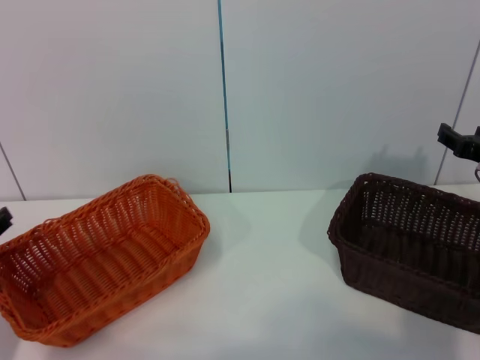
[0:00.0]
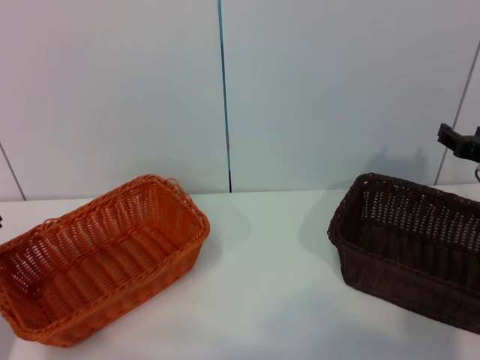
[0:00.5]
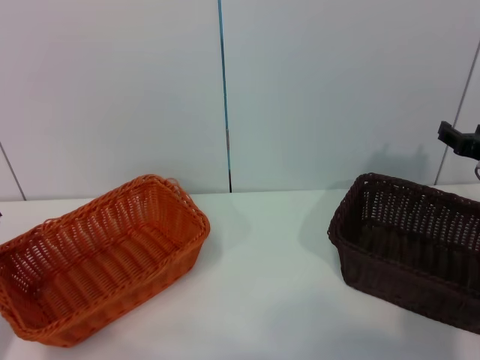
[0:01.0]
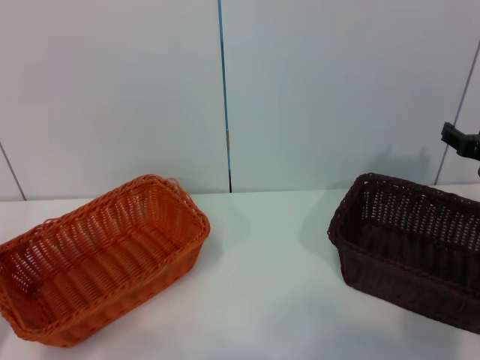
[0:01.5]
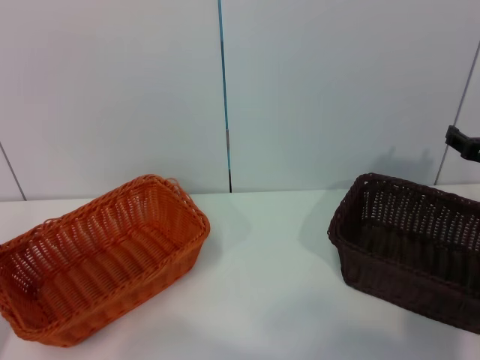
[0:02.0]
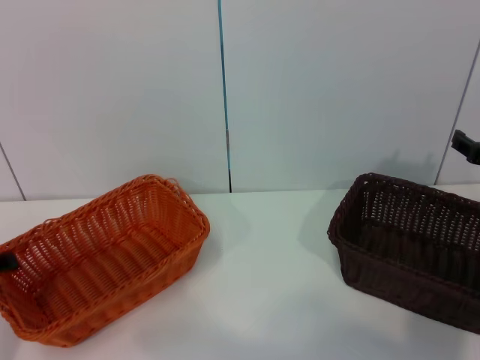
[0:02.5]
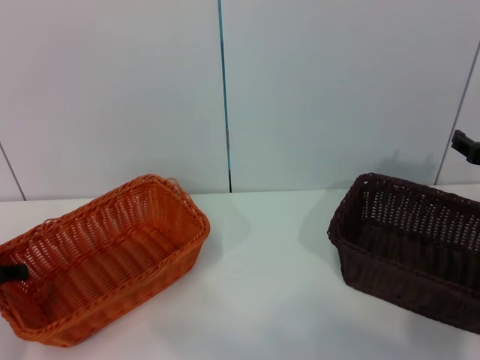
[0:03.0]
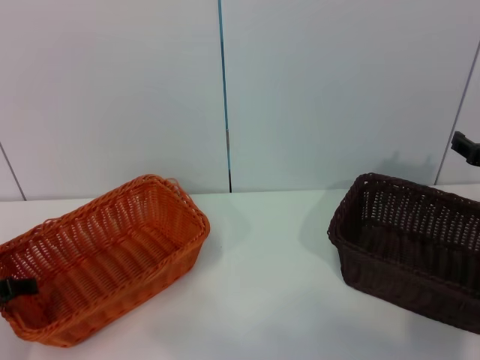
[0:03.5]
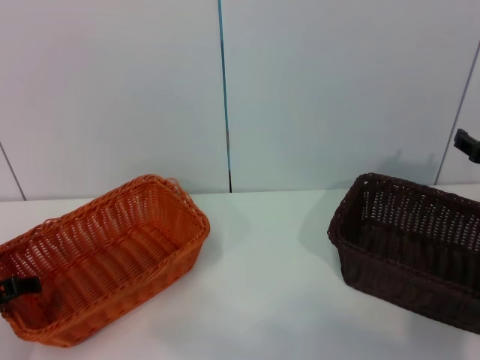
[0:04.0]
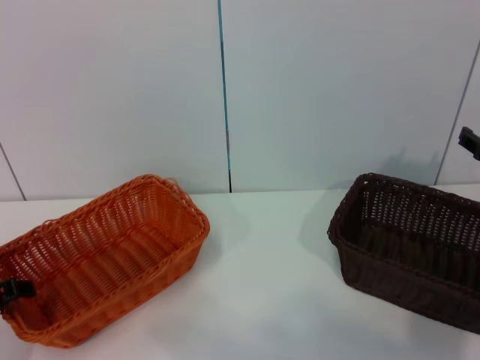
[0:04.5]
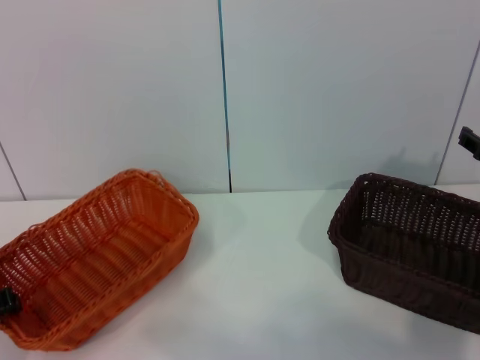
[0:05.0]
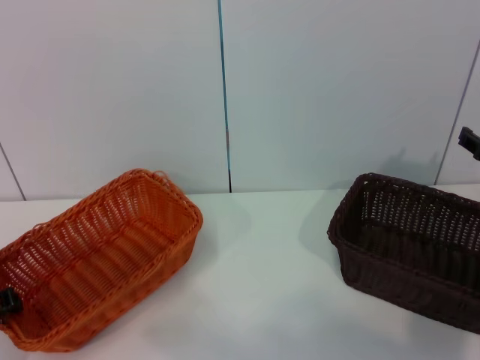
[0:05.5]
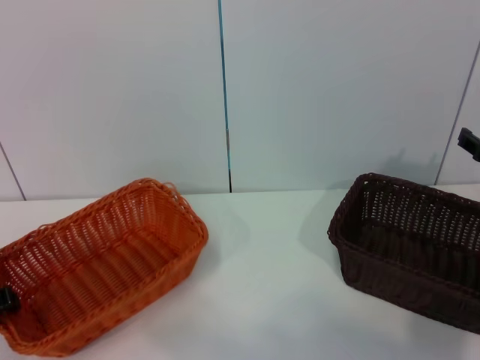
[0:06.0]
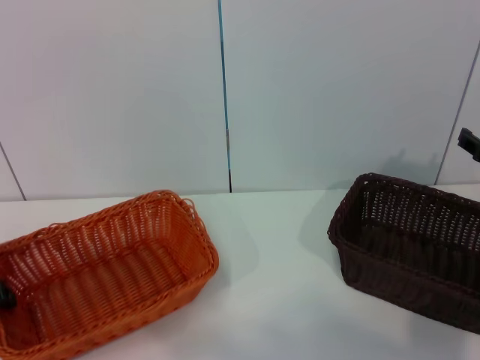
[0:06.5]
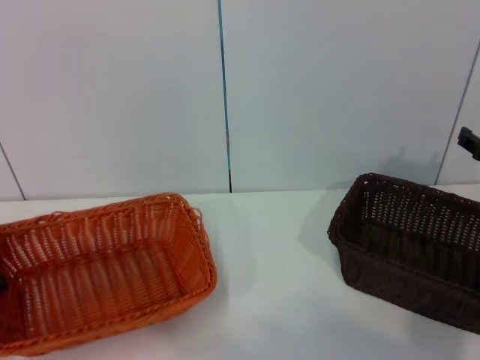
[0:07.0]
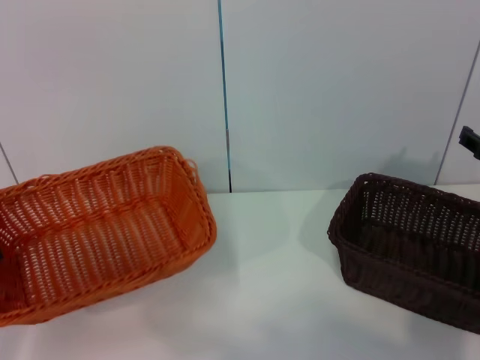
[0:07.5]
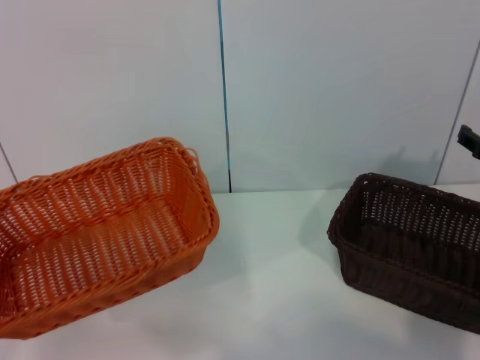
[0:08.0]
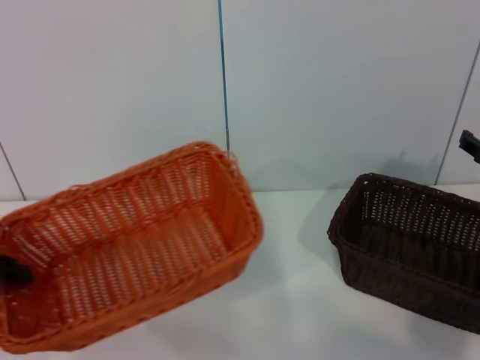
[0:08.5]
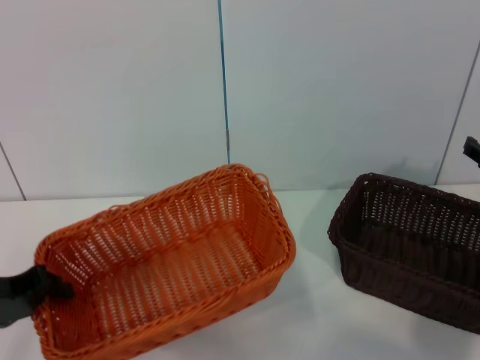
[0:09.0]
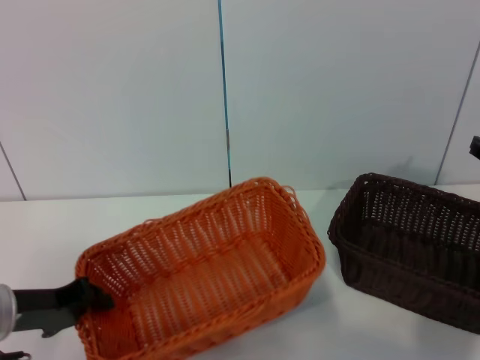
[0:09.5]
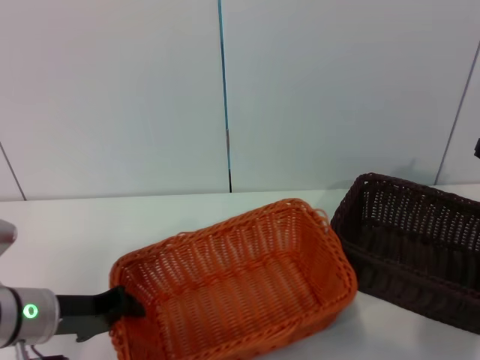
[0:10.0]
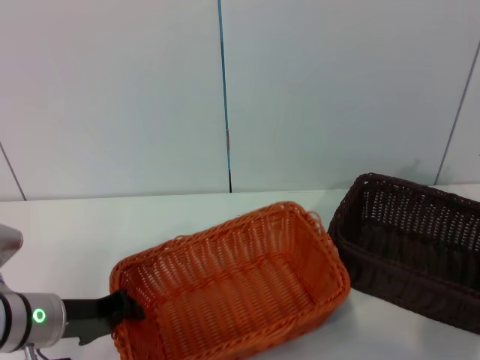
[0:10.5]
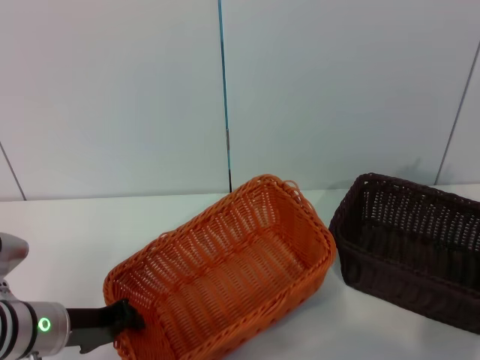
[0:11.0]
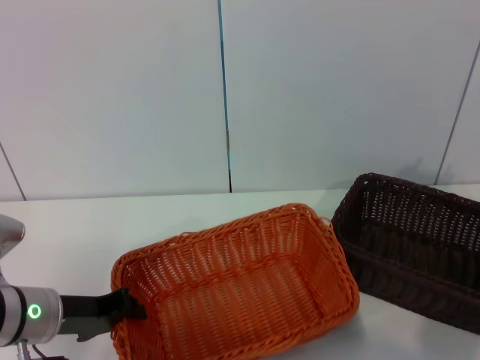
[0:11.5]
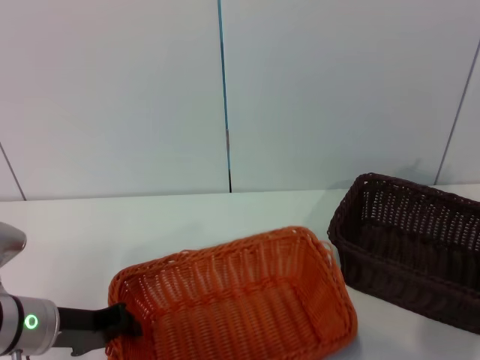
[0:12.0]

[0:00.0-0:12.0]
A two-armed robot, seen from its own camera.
Step, 0:00.0 to 0:06.5: Pick up the light basket with the left gripper.
0:02.0 to 0:04.0: The left gripper changes place by some 5 cm.
0:04.0 to 0:06.0: The left gripper closes.
0:06.0 to 0:08.0: The left gripper goes approximately 10 cm upward.
0:08.0 to 0:10.0: The left gripper travels to the right and downward by some 15 cm.
0:10.0 to 0:12.0: The grippers move only a little.

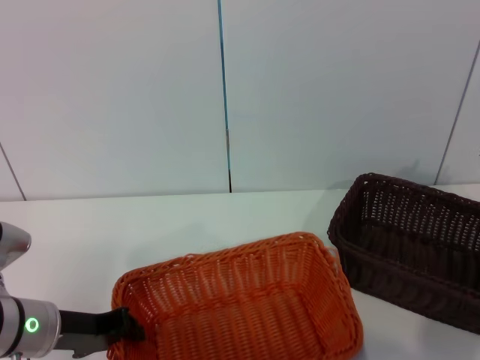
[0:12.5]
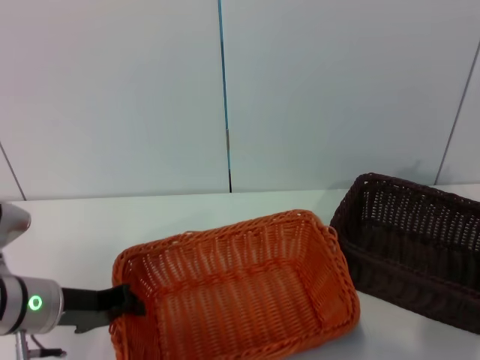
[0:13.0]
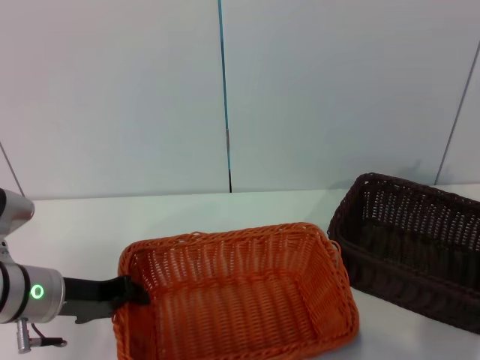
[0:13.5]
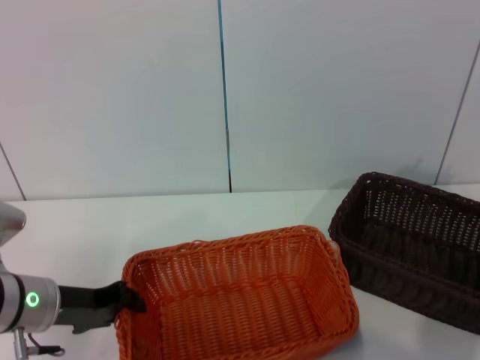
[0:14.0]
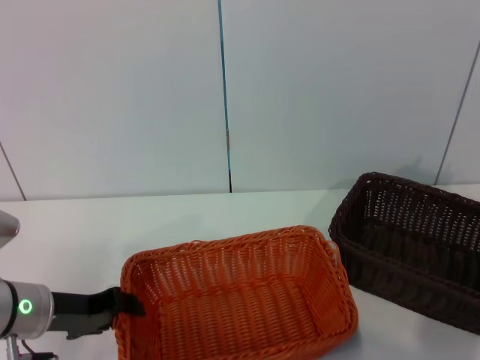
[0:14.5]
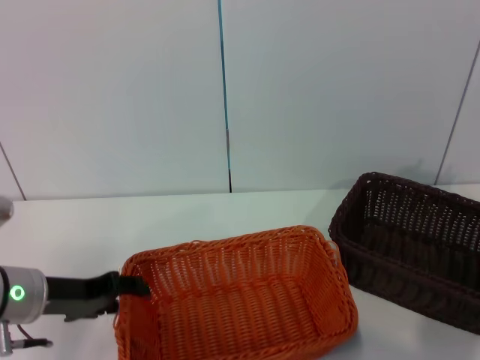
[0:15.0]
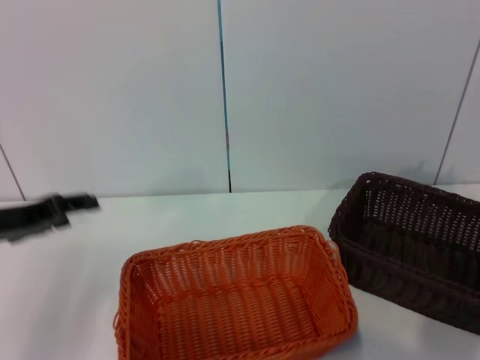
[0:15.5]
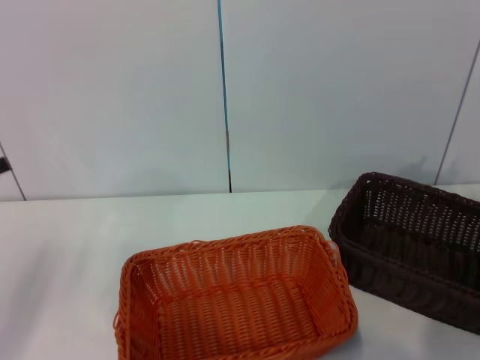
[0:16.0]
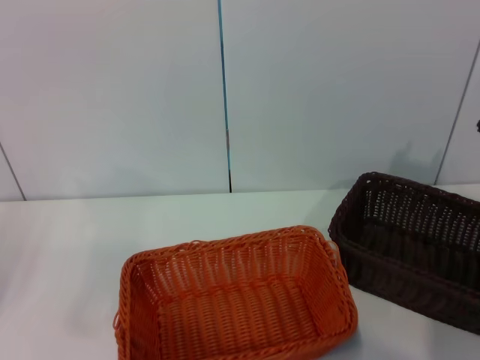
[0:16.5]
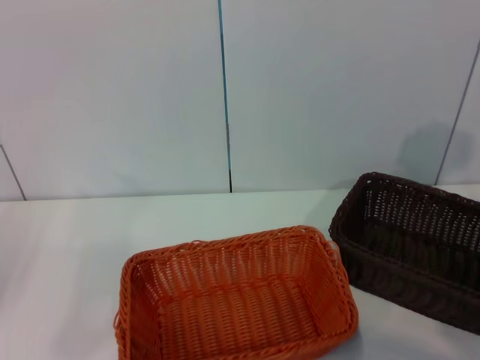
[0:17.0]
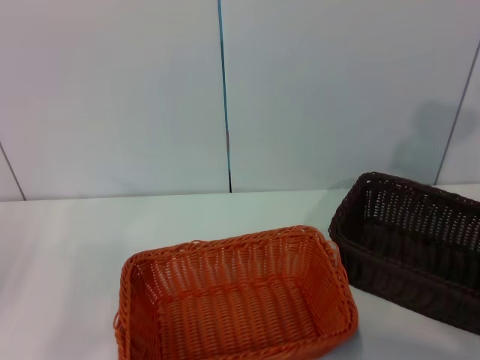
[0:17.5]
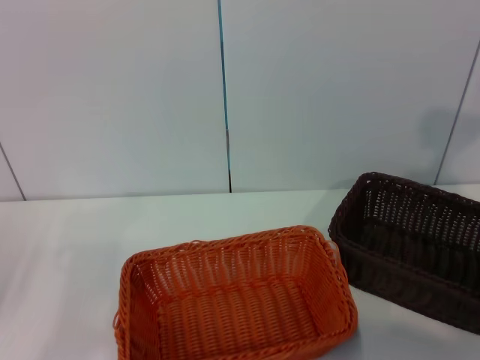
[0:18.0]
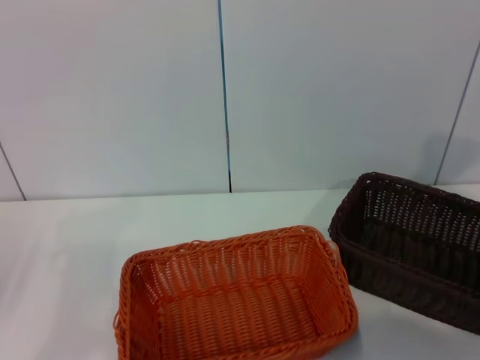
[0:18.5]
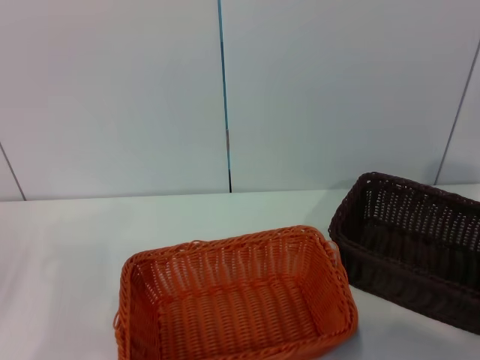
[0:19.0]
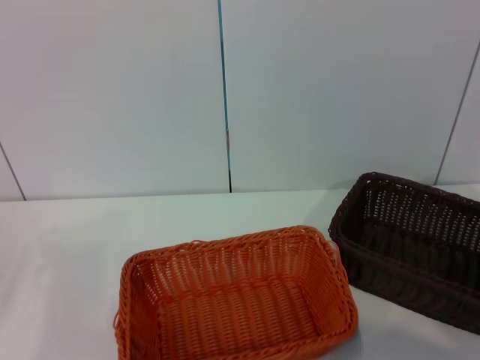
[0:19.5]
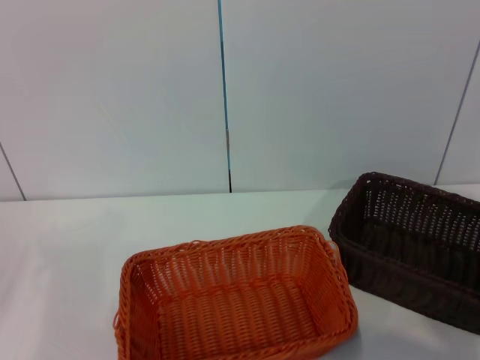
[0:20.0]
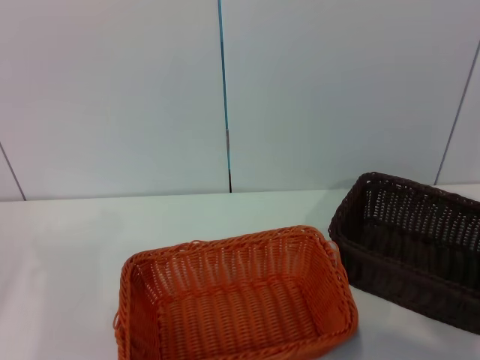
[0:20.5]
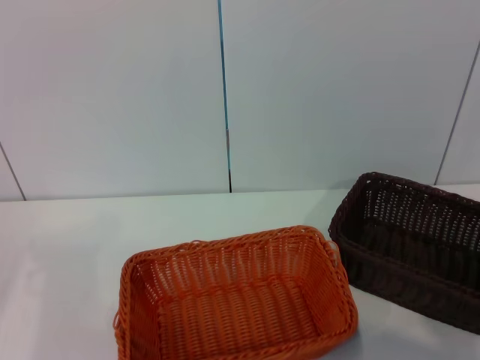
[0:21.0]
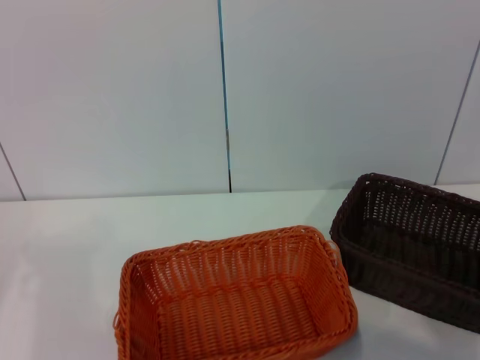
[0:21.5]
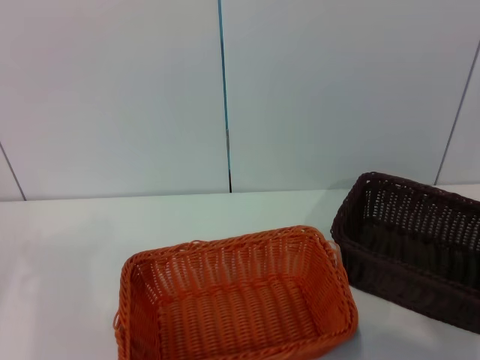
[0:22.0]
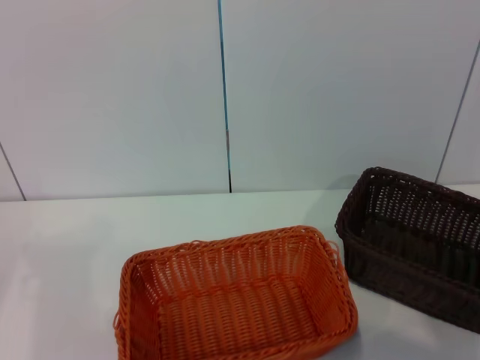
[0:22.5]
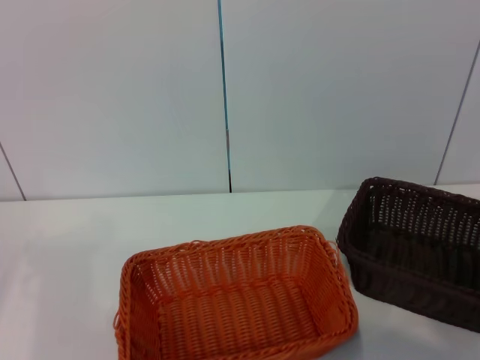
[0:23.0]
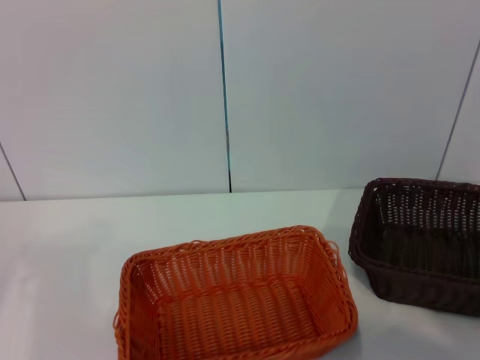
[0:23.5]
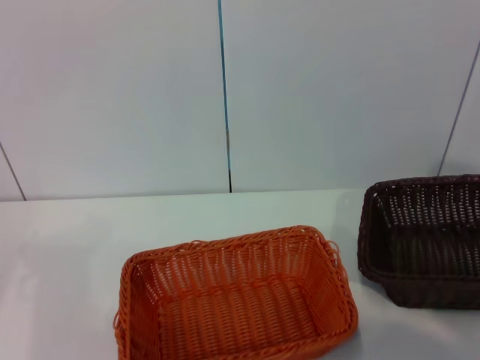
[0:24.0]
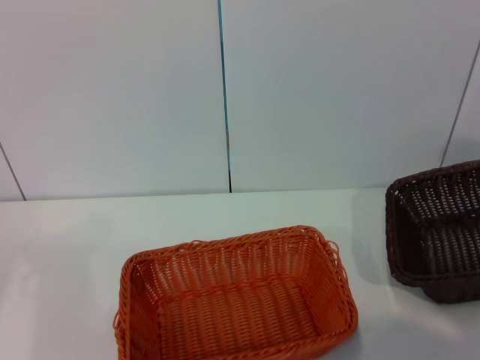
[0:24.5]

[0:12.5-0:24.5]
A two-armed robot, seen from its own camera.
0:12.5 to 0:14.5: The grippers stay close to where they were, moving slightly.
0:14.5 to 0:16.5: The left gripper goes some 20 cm to the left and upward, and opens up.
0:16.5 to 0:18.5: The right gripper goes roughly 10 cm upward and to the right.
0:20.5 to 0:22.5: The right gripper closes its fingers.
0:22.5 to 0:24.5: The right gripper moves upward, some 10 cm.

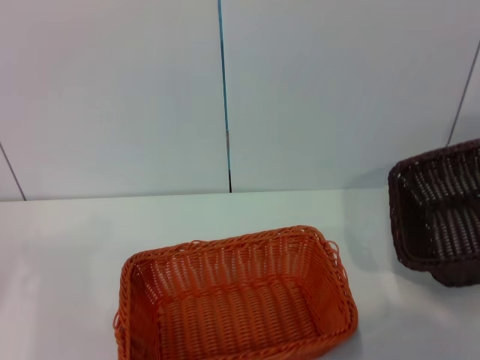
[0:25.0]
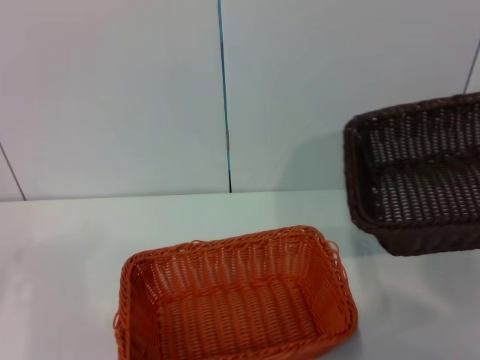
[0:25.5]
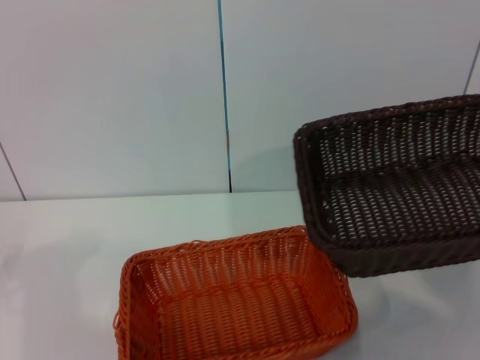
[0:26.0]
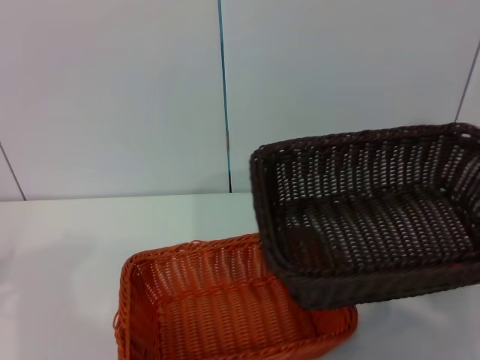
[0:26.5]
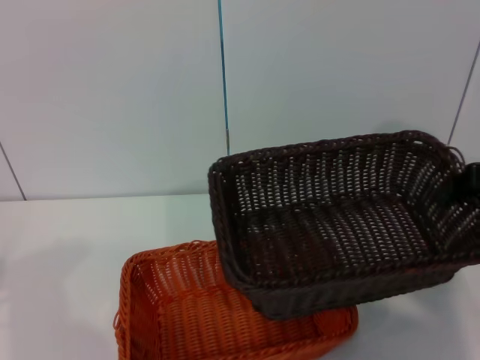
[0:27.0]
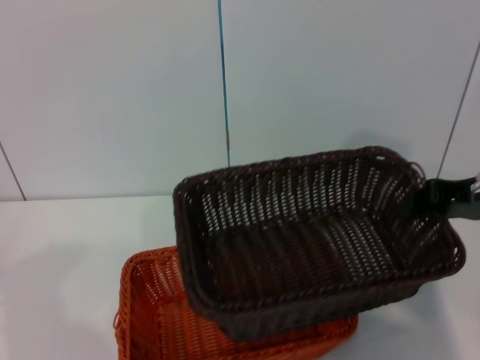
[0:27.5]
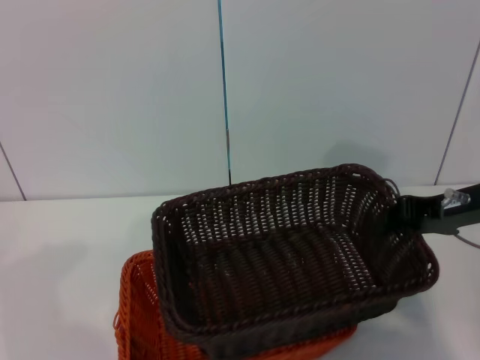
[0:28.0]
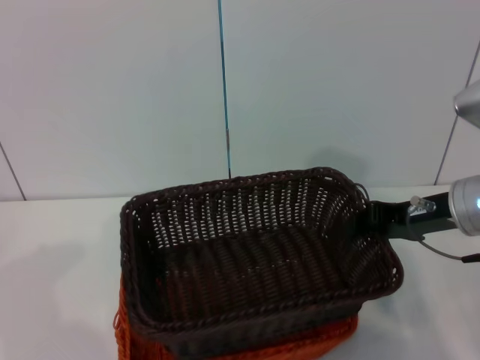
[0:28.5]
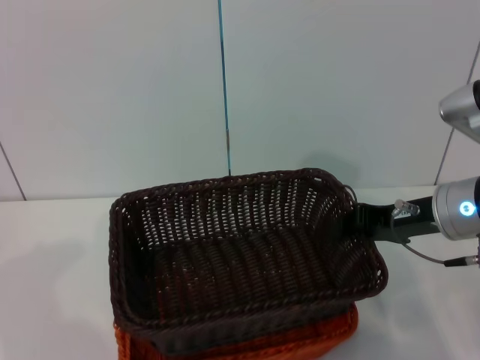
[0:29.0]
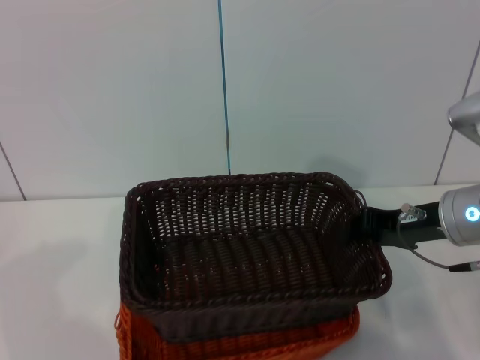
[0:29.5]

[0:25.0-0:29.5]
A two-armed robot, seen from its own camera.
0:25.0 to 0:27.0: The right gripper heads to the left, covering approximately 10 cm.
0:27.0 to 0:29.5: The right gripper travels to the left and downward by about 10 cm.
